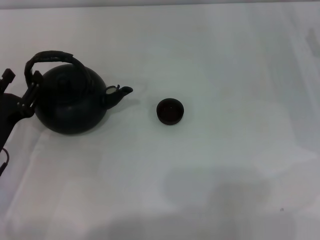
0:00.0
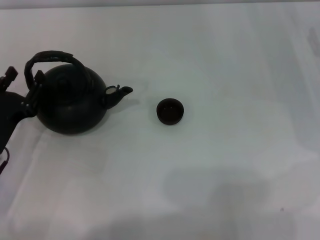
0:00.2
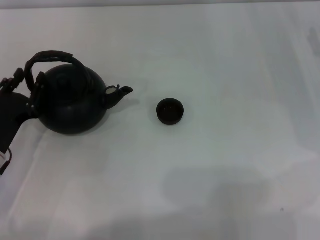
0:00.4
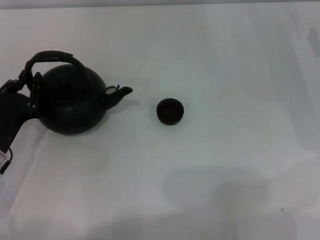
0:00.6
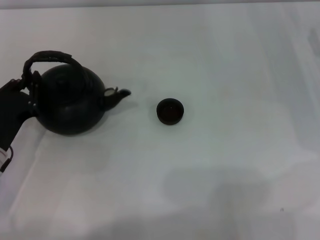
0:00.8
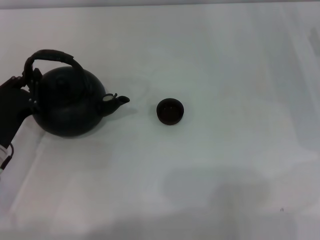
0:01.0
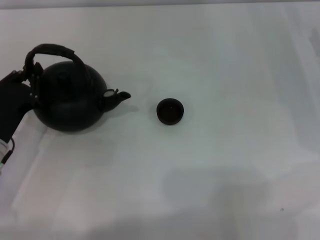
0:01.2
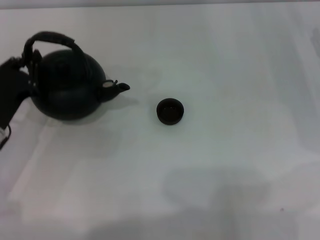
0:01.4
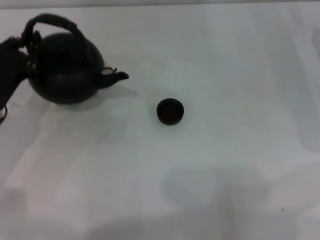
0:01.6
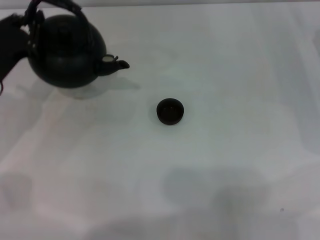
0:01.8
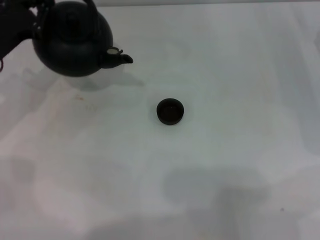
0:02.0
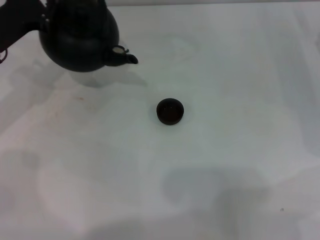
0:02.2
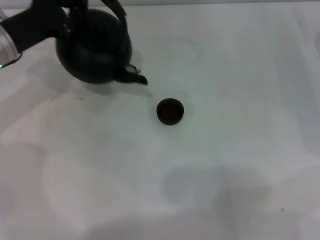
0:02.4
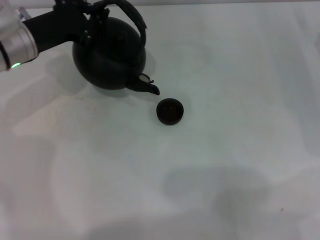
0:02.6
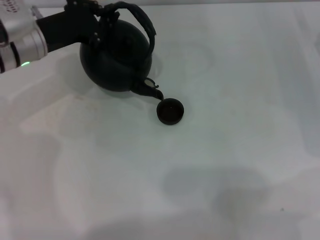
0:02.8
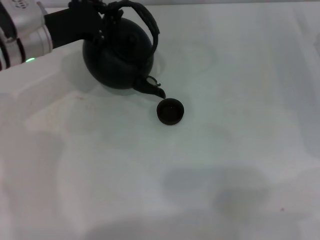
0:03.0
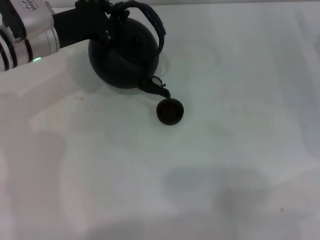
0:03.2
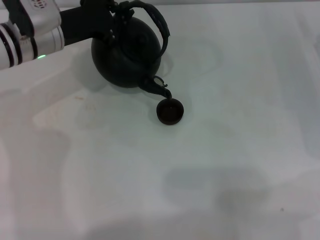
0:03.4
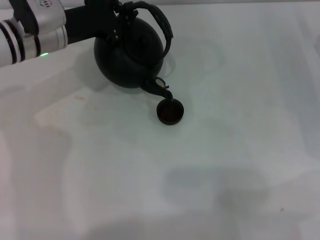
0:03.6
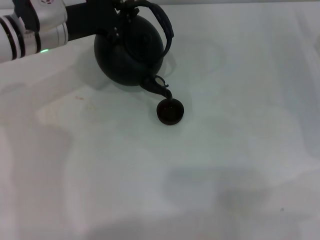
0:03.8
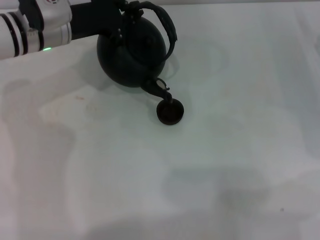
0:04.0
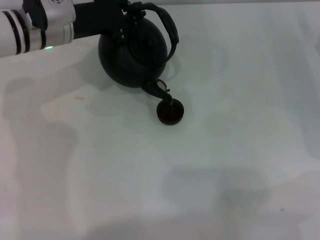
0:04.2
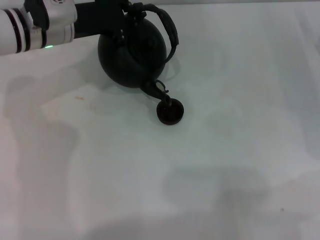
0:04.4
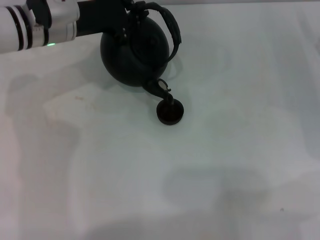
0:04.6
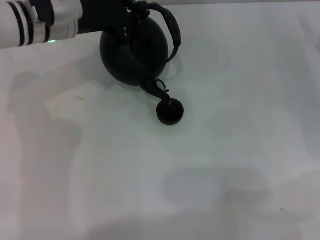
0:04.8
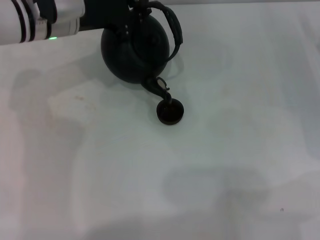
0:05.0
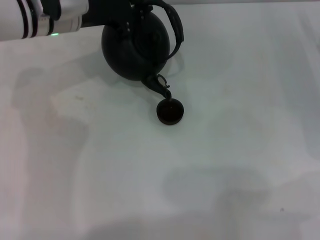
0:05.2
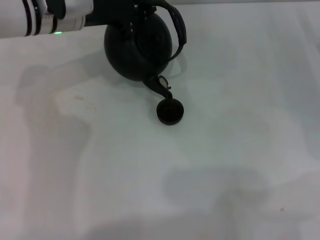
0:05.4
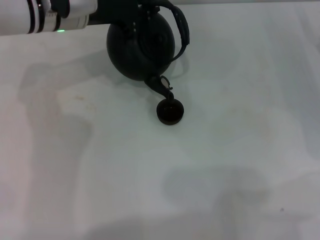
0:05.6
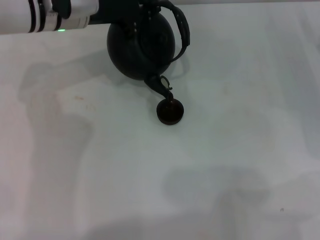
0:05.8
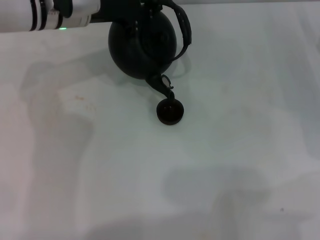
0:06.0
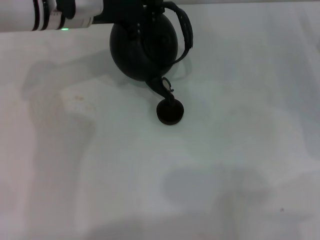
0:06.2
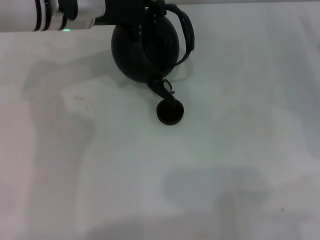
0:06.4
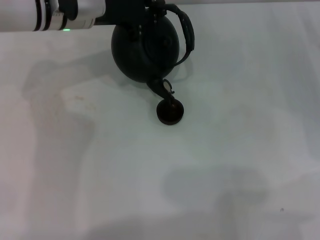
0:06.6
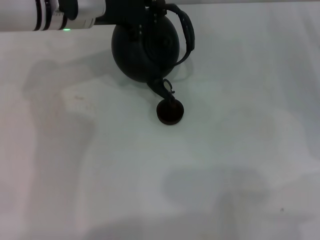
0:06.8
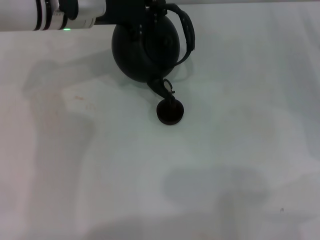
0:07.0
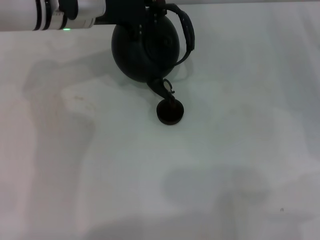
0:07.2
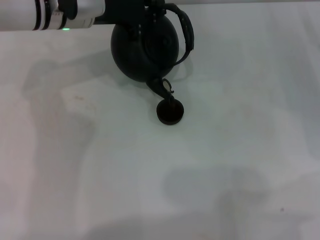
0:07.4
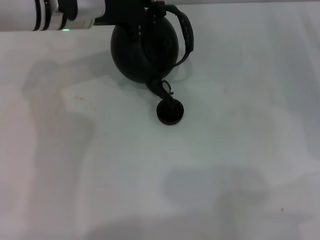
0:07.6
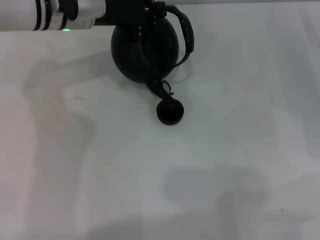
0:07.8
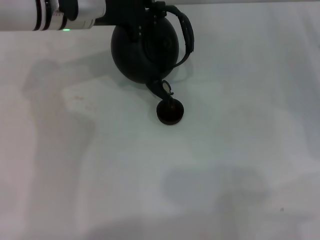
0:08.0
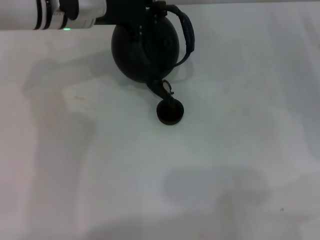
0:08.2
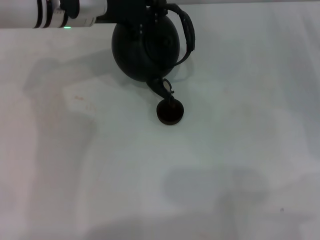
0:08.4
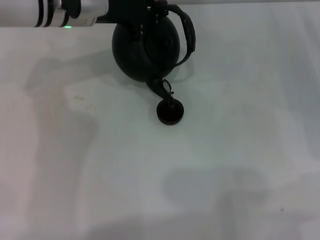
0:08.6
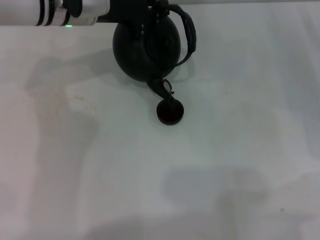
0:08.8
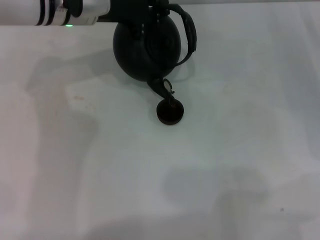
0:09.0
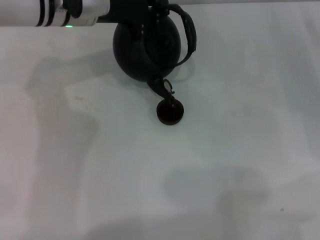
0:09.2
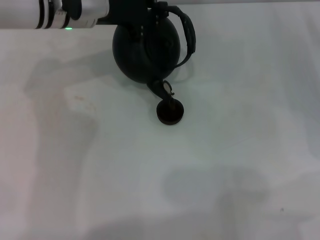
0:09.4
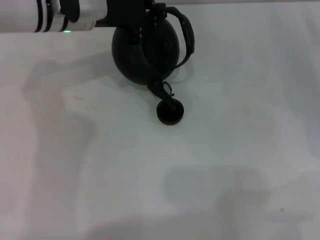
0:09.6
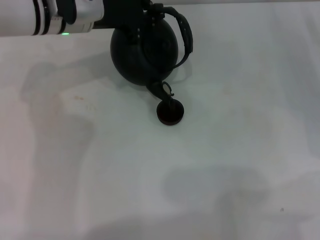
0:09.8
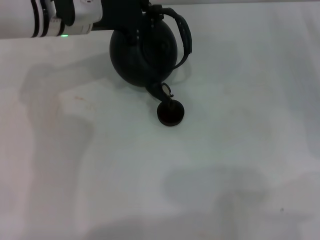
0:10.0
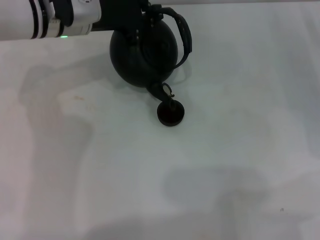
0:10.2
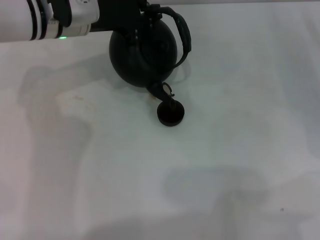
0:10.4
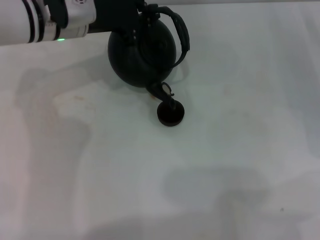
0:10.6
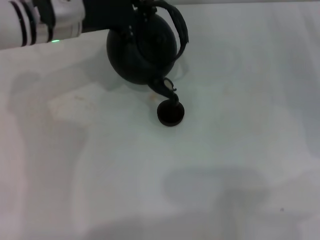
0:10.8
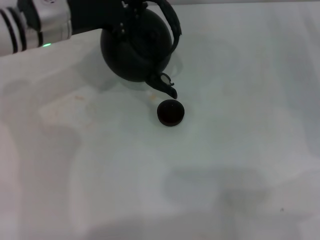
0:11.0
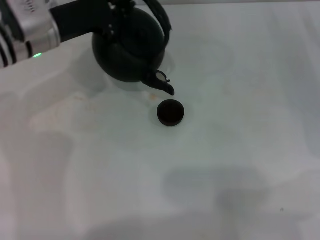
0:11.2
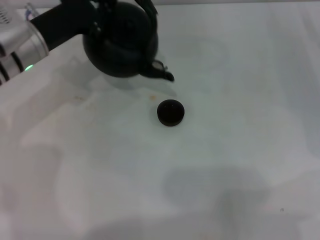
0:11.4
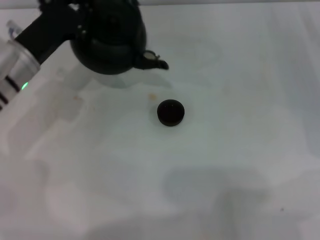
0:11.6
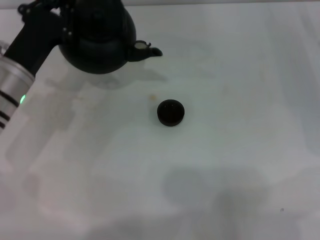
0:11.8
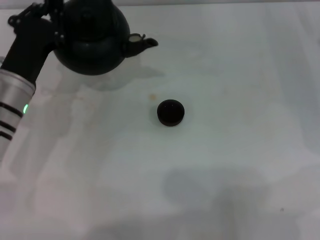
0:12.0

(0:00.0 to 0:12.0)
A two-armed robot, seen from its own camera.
Task of the whole recording: Grasp the handle of the teapot with one hand and pour tea into the teacup.
Step, 0:01.8 - 0:11.2: Pour tea into the teacup with the left gripper.
0:00.0 - 0:01.6: The left gripper shifts about 5 cm forward, and closes up.
0:01.6 - 0:03.0: The left gripper shifts about 15 cm forward, upward and to the right.
0:03.0 - 0:04.4: The grippers make only small movements.
0:04.4 - 0:06.0: There are only small adjustments of the grippers.
0:06.0 - 0:07.6: Neither gripper changes place.
0:07.6 - 0:09.0: The two grippers keep their place.
0:09.0 - 0:10.4: The grippers move only a little.
0:10.4 - 0:12.0: The left gripper shifts about 15 cm backward, downward and to the left.

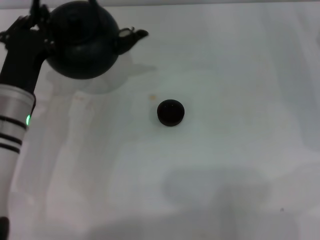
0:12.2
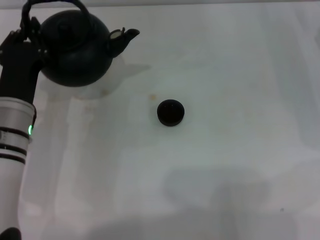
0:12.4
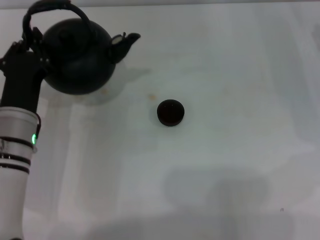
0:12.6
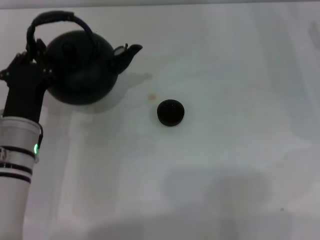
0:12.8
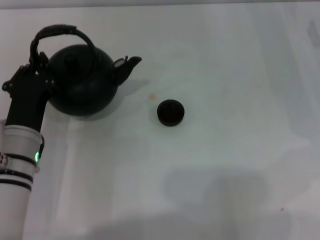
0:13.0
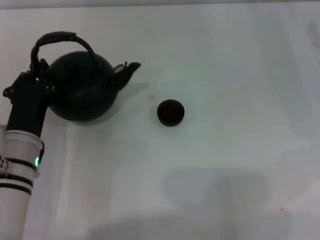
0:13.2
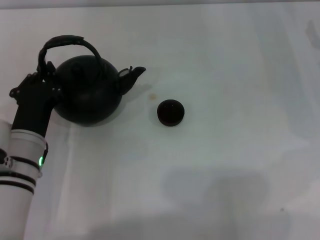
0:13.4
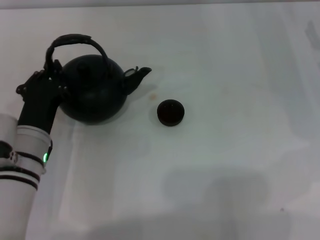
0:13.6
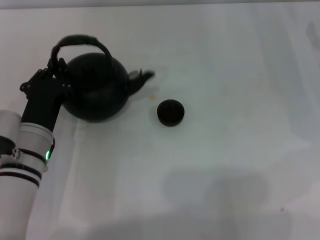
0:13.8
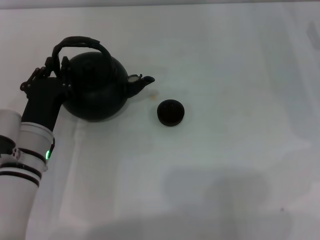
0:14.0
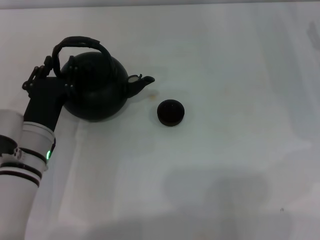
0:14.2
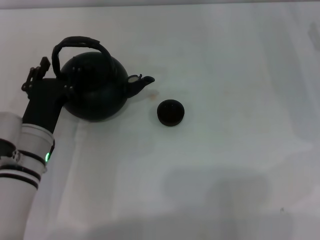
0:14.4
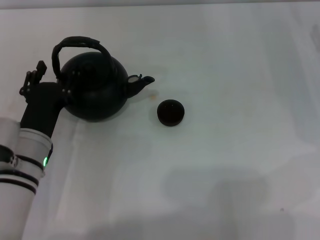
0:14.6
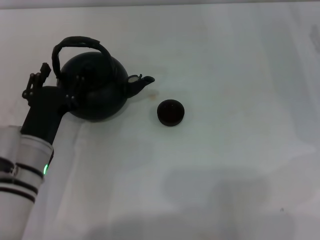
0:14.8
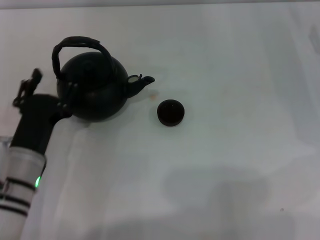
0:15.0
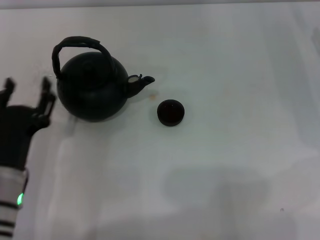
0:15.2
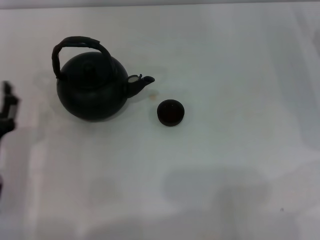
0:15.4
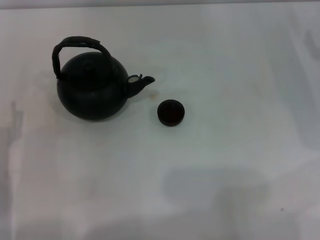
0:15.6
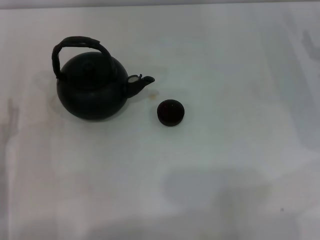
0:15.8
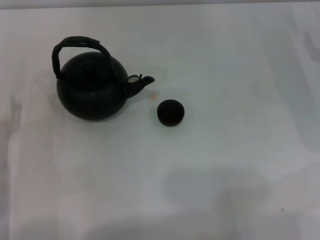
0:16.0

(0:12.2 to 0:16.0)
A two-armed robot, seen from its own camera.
Task of the whole recording: Grasp the handle of the teapot with one hand and pour tea into the teacup.
Step, 0:12.2 - 0:15.0: Put down the teapot with the left gripper.
0:12.2 - 0:13.4: The left gripper moves some 5 cm.
0:13.4 - 0:14.8: The left gripper opens.
0:14.8 - 0:16.0: The left gripper is displaced to the left by approximately 10 cm.

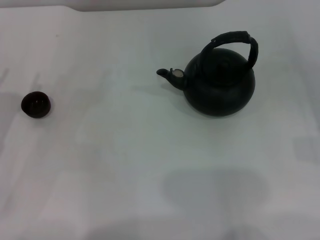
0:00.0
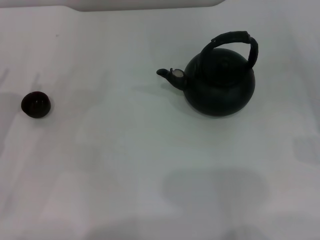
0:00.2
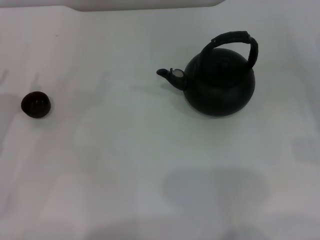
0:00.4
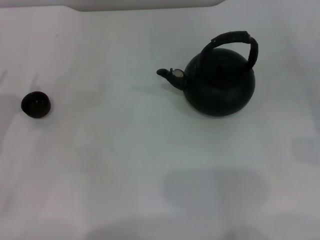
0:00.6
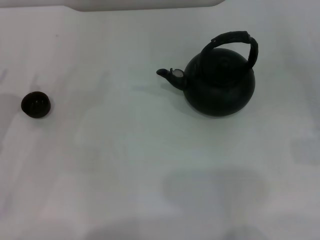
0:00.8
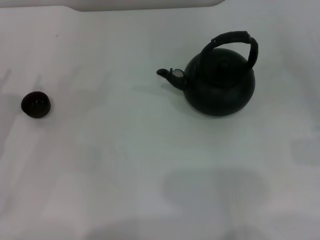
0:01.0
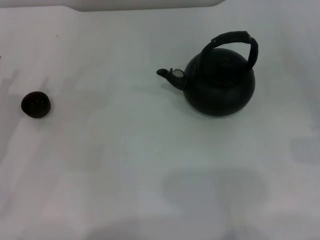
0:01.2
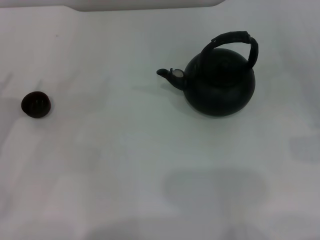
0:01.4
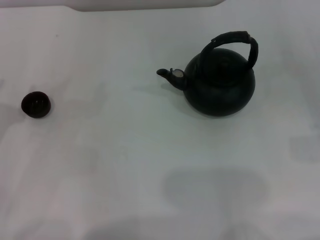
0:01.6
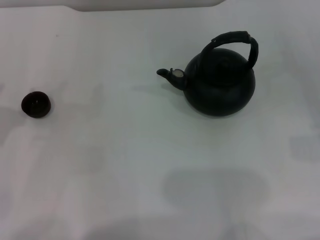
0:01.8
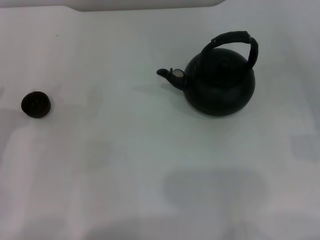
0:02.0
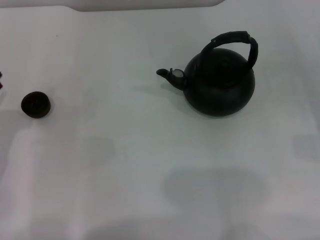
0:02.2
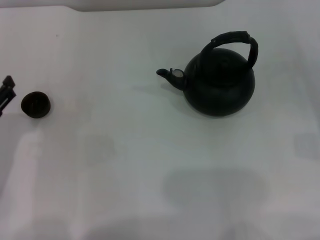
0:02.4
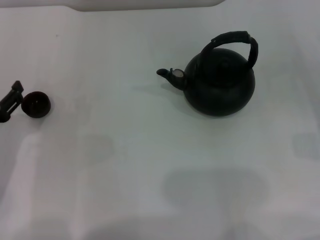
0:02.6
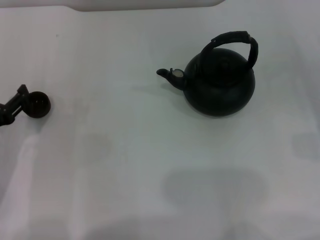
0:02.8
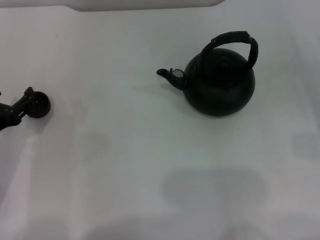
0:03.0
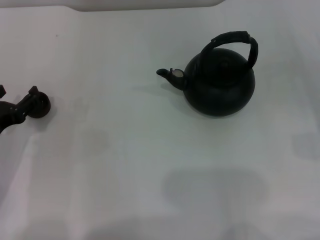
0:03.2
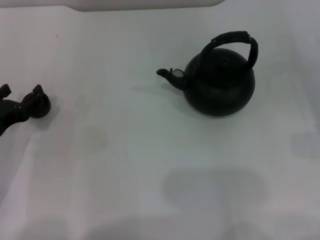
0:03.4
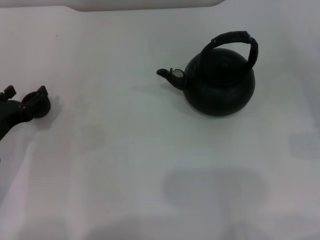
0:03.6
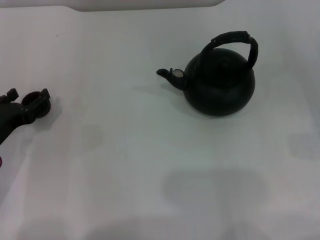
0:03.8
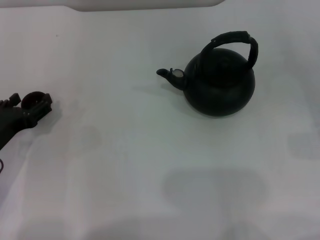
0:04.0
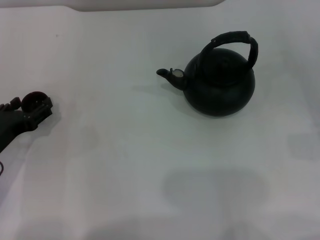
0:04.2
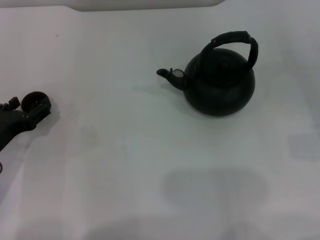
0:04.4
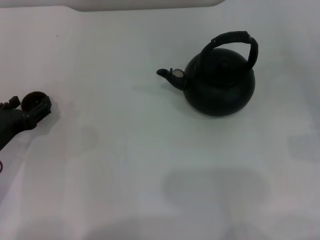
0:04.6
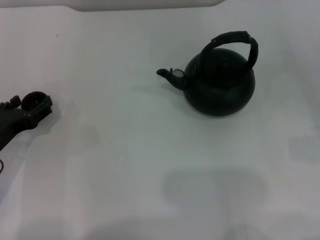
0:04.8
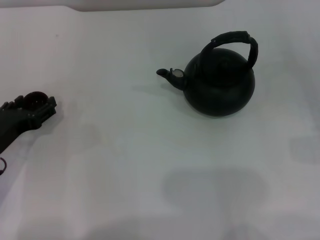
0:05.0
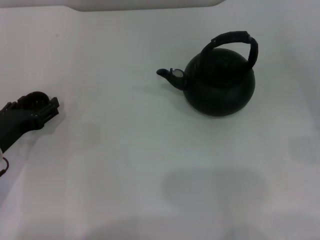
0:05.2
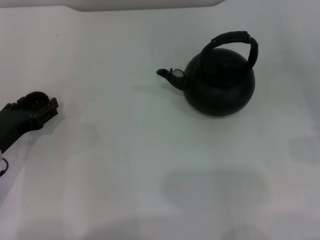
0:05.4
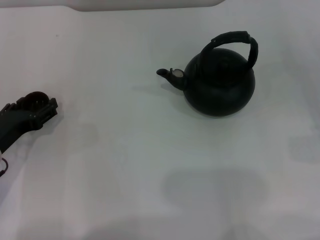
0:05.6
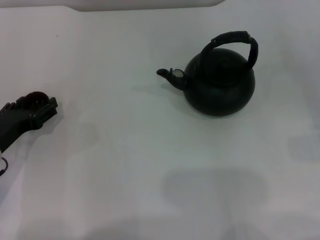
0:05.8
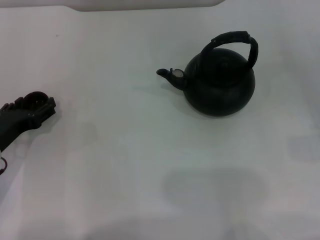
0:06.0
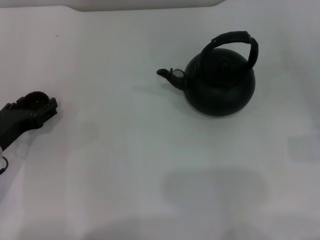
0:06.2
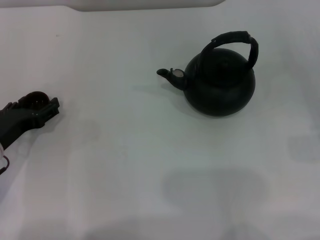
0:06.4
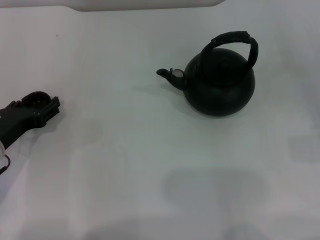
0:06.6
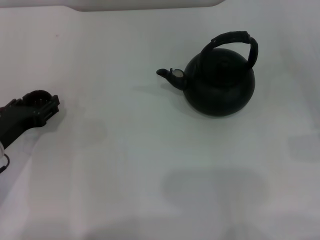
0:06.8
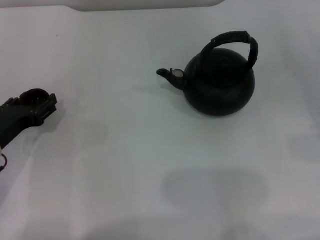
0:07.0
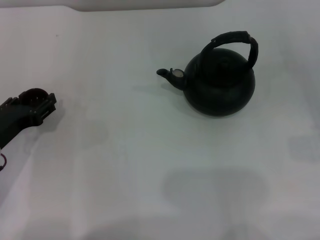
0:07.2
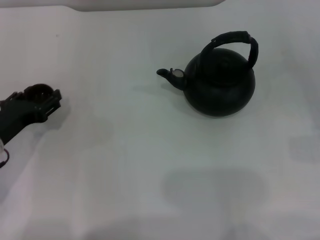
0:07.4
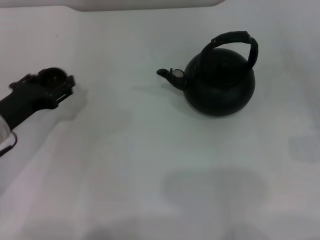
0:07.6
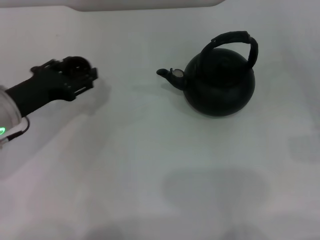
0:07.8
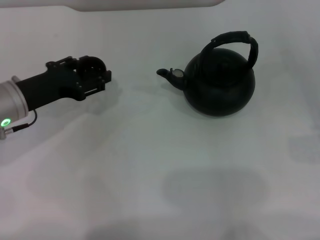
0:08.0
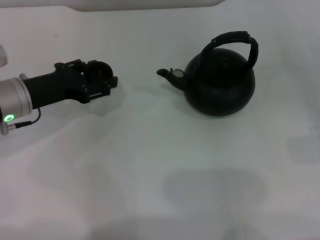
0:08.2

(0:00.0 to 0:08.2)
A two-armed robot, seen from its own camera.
Task of the whole recording: Grasp the handle of the teapot with one hand and pour tea into the teacup.
0:01.6 - 0:03.2: The left gripper moves to the right, roughly 5 cm, and opens.
0:03.2 - 0:05.0: The grippers stay close to where they were, moving slightly.
0:05.0 - 0:06.6: The two grippers keep their place.
0:06.6 - 0:08.2: The left gripper moves forward and upward, some 10 cm, and closes.
